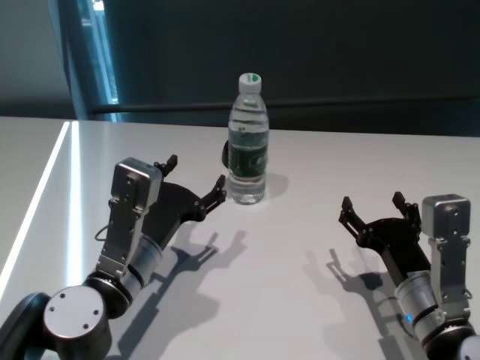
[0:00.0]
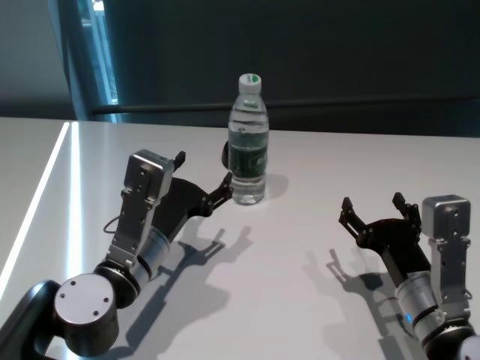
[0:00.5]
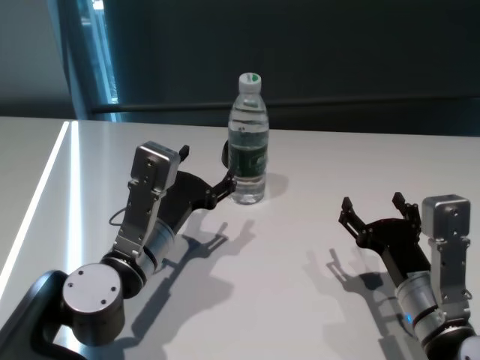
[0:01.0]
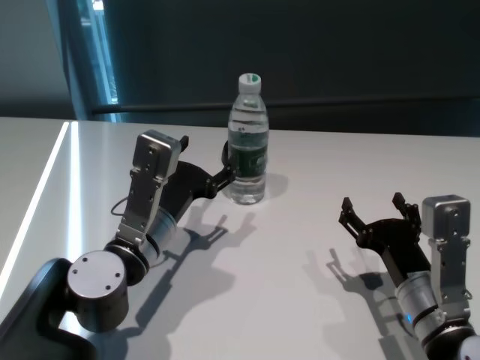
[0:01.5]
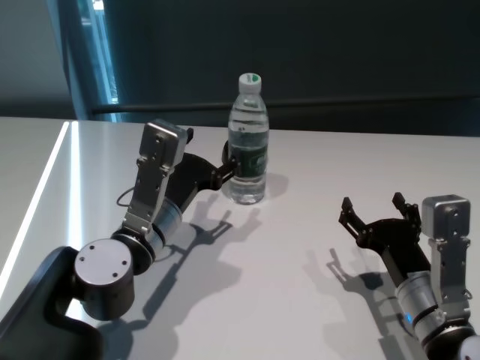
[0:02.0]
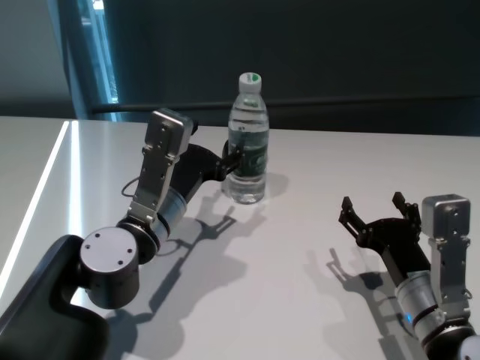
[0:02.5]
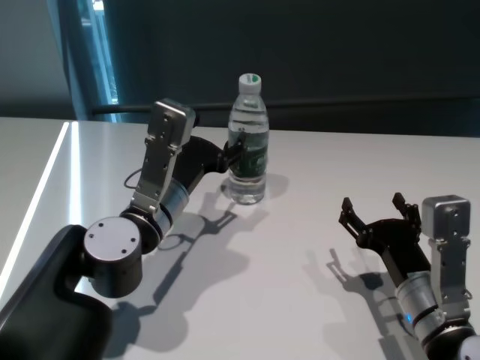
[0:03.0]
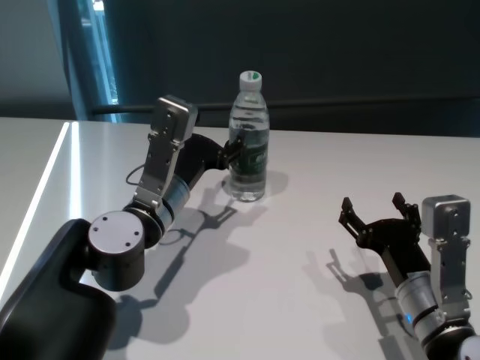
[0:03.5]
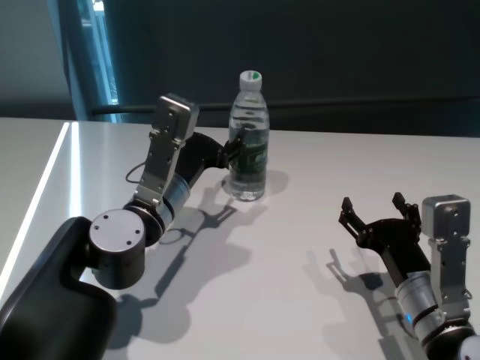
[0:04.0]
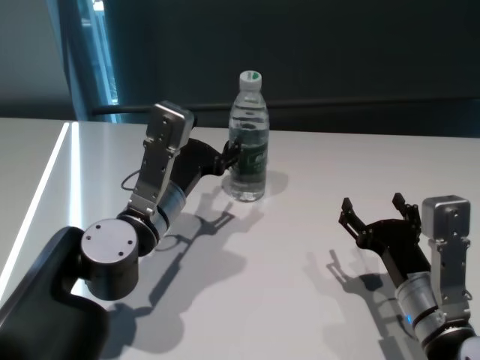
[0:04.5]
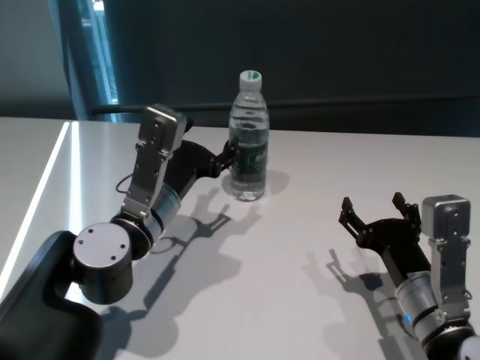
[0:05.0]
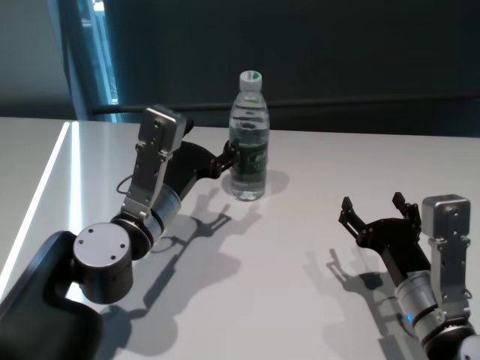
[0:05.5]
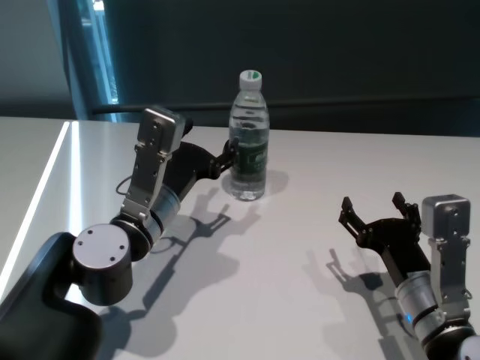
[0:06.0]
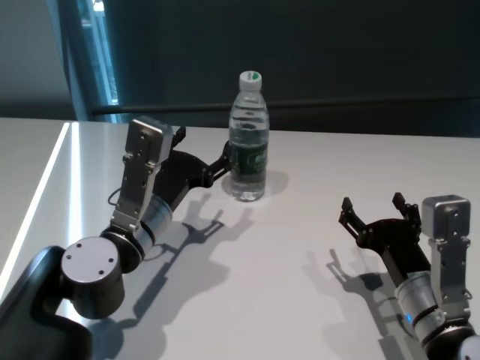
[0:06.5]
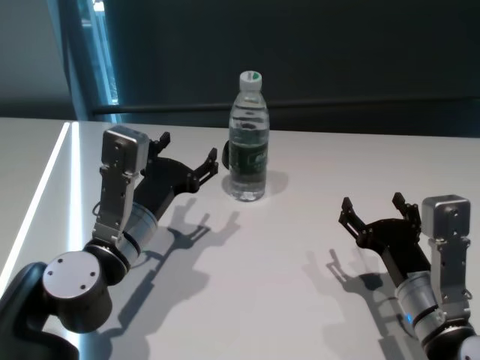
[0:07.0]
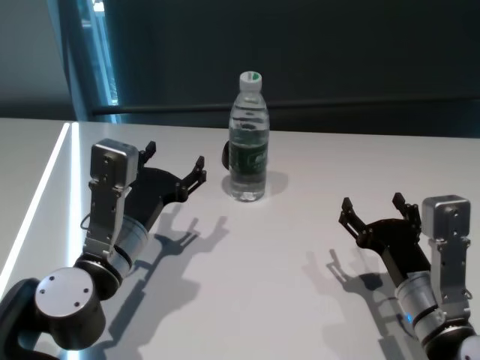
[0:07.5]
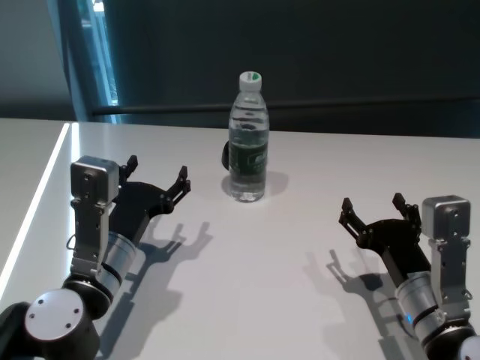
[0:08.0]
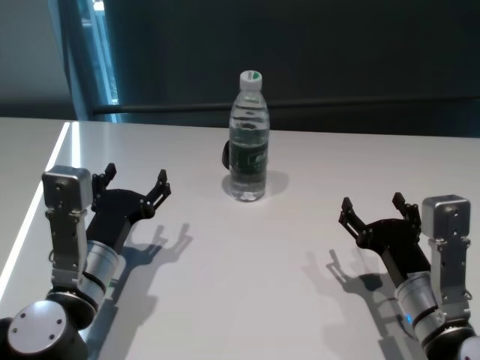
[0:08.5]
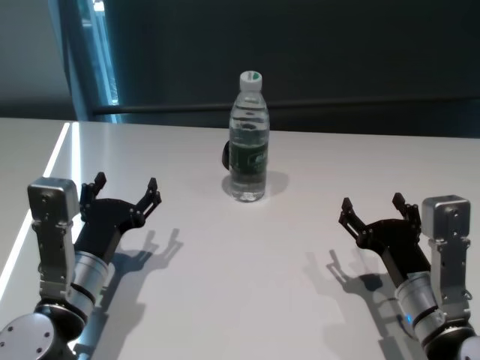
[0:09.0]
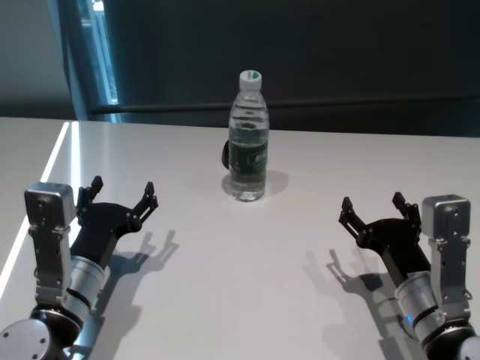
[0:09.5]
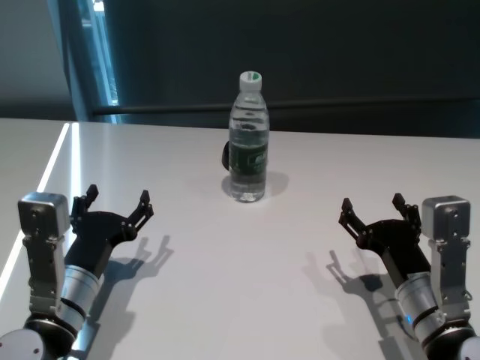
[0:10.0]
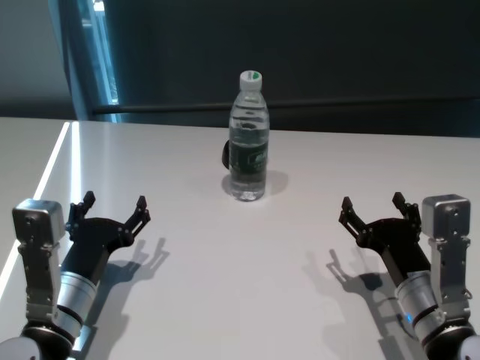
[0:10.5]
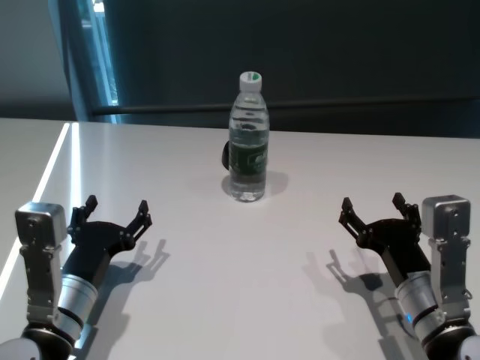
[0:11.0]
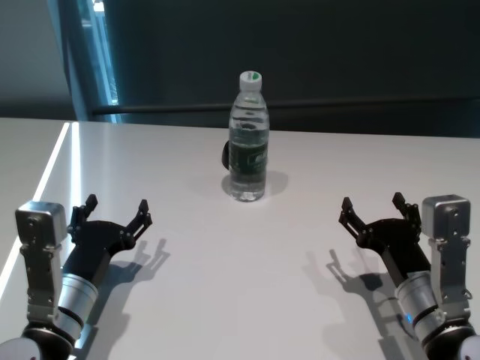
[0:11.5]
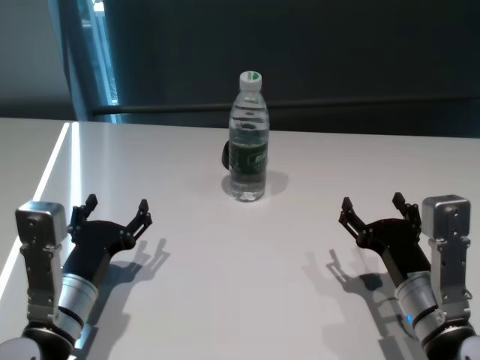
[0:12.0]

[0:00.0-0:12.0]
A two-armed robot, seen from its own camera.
Task of the whole recording: return to a safe position after touching an obstacle with your arm on the white table.
Step, 0:00.0 to 0:06.5: Touch the bottle with left gripper.

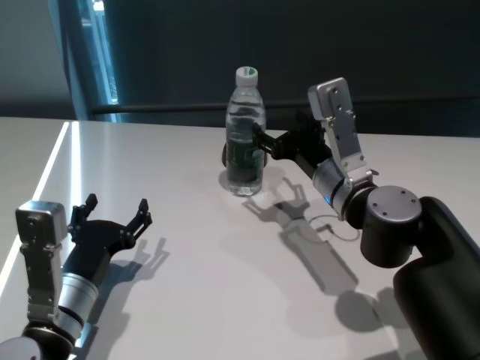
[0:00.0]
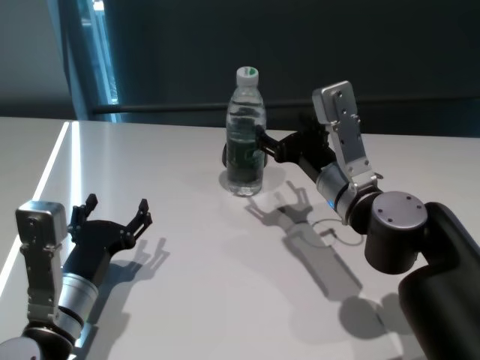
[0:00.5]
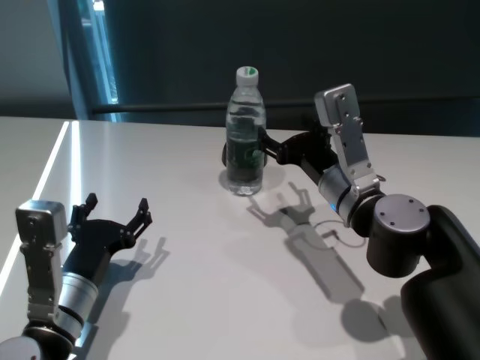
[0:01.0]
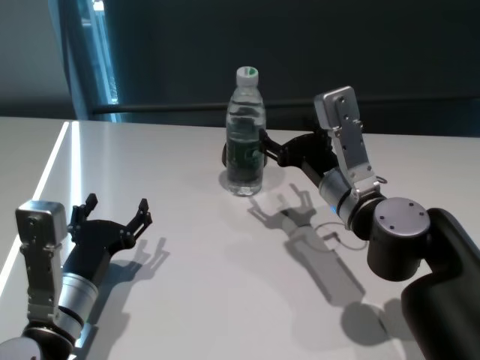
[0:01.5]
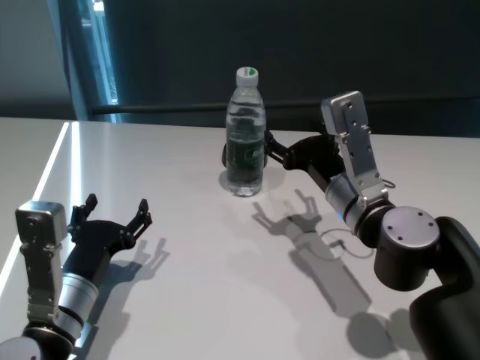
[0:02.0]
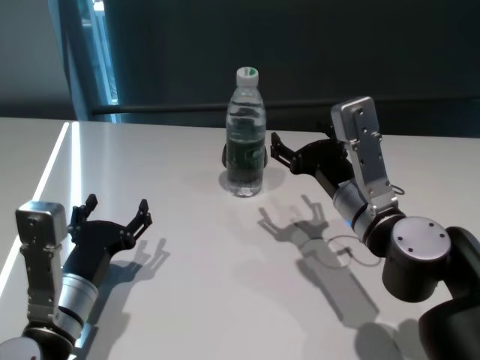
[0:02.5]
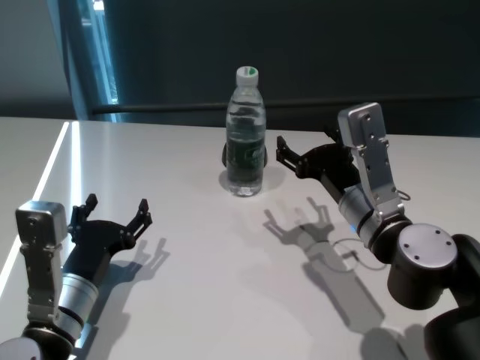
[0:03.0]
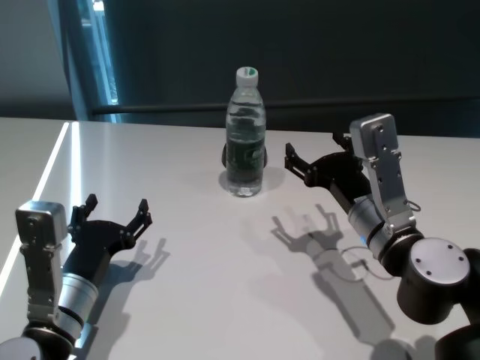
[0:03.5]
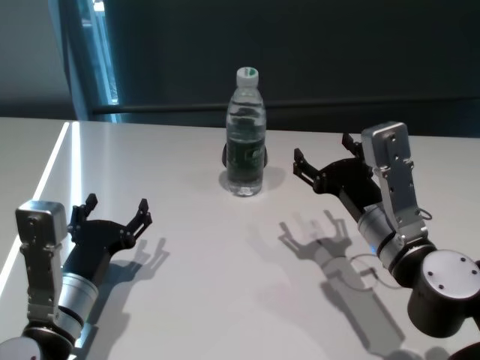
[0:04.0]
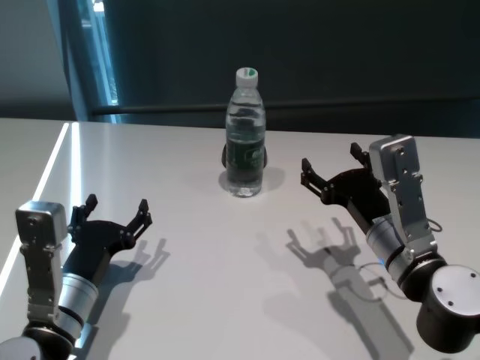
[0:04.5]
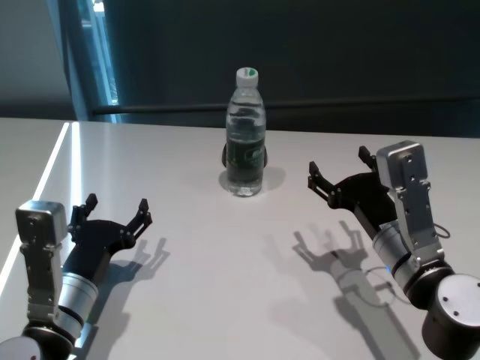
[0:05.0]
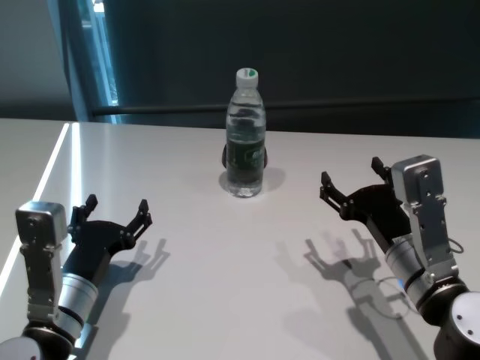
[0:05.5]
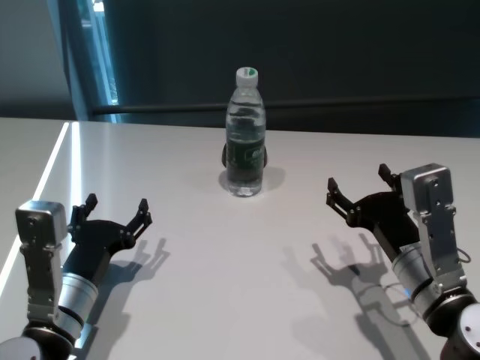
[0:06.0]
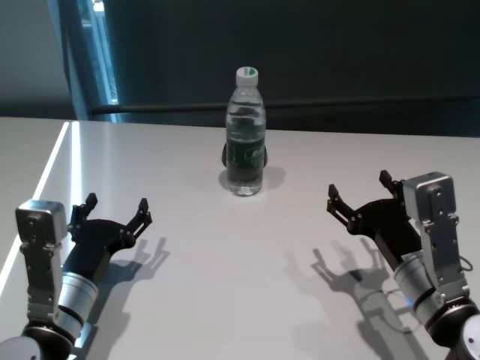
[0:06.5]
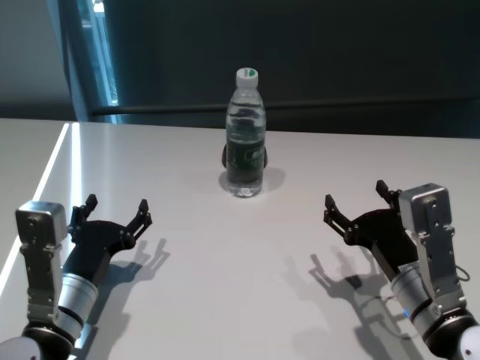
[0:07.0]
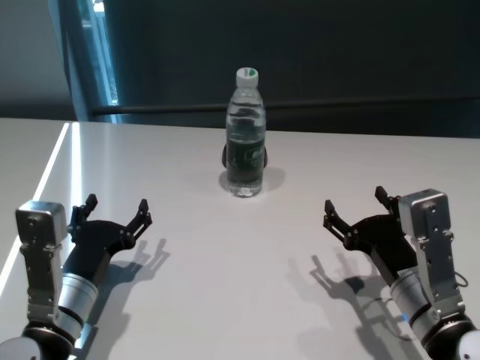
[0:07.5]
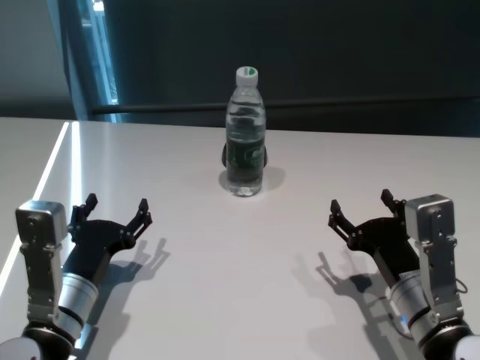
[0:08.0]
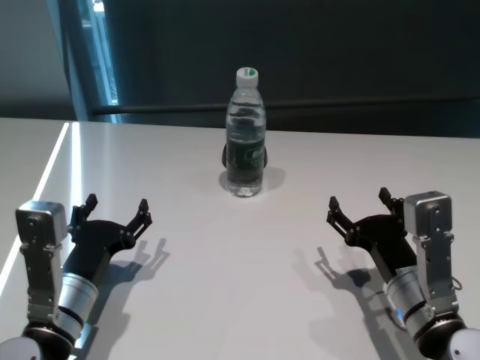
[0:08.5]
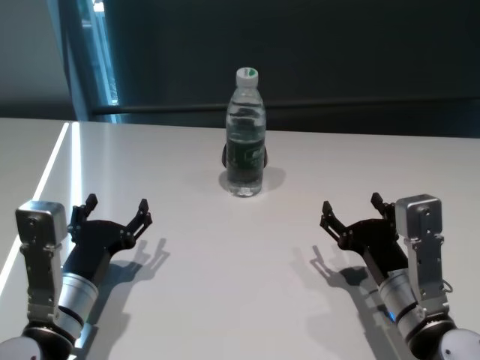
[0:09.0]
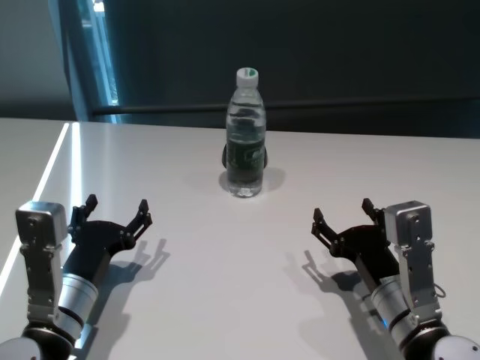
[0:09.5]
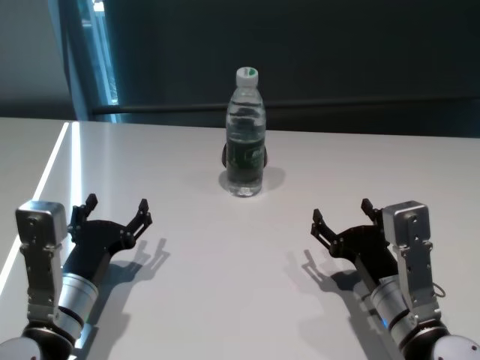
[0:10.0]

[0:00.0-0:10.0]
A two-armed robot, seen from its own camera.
Task of the whole recording: return to a safe position after touching an obstacle with your arm on the white table.
Step, 0:00.0 to 0:02.5: Touch the bottle with right gripper.
